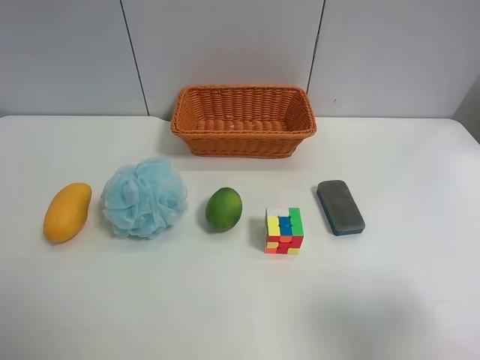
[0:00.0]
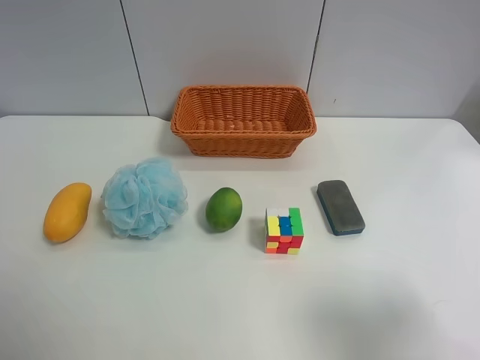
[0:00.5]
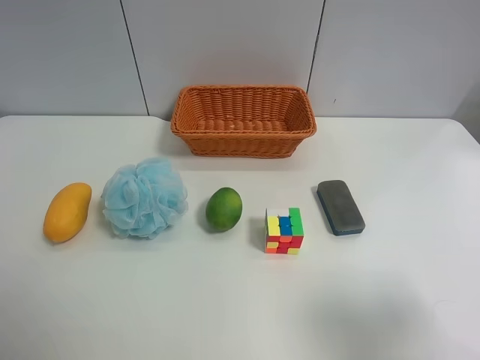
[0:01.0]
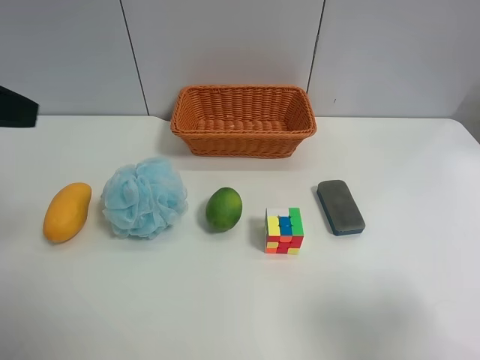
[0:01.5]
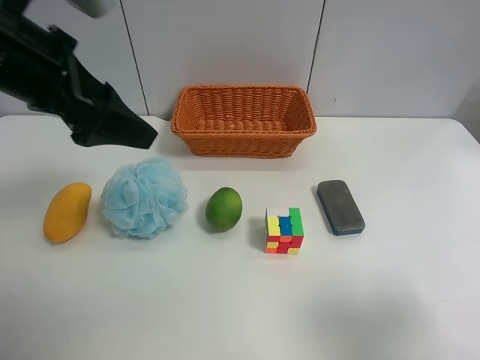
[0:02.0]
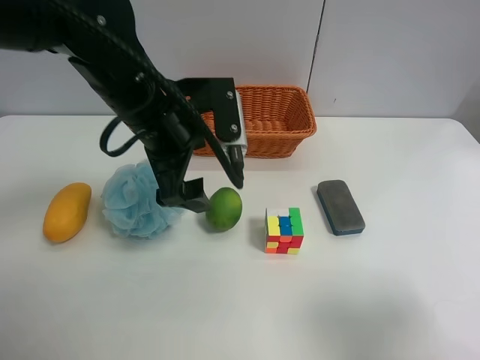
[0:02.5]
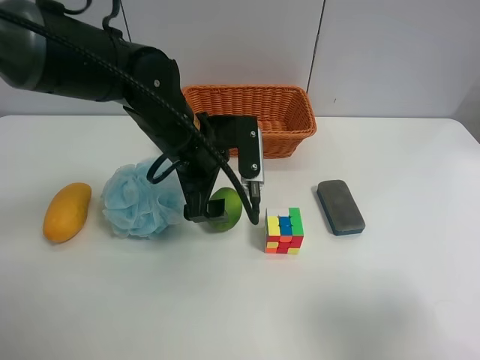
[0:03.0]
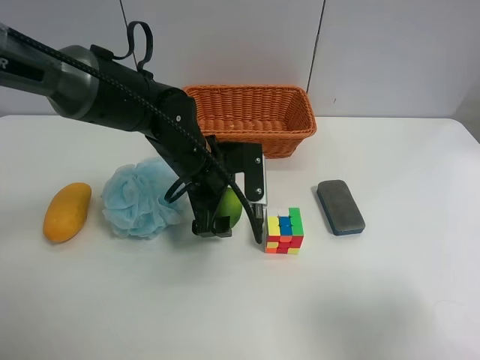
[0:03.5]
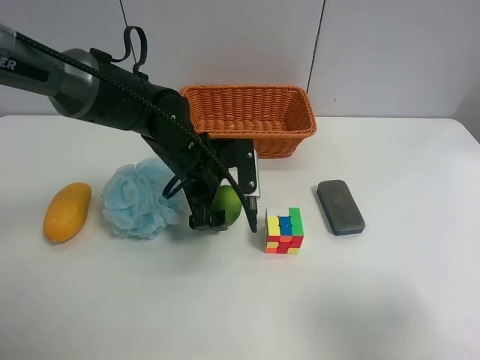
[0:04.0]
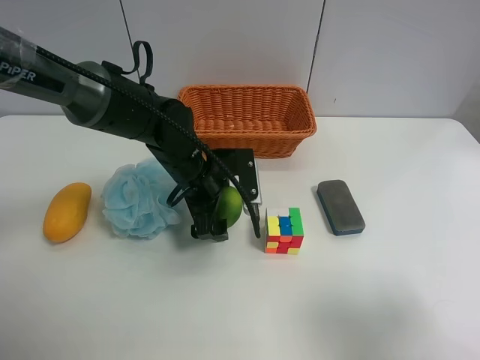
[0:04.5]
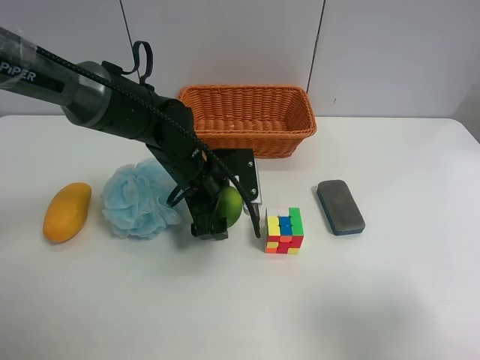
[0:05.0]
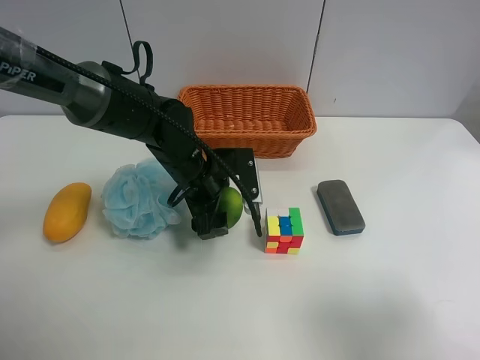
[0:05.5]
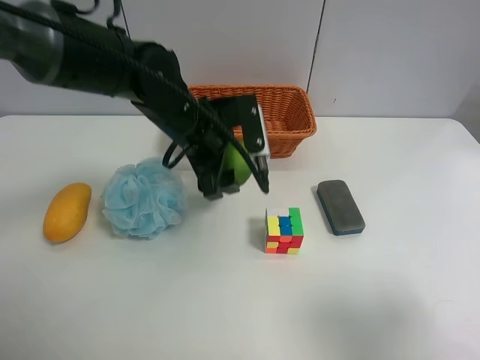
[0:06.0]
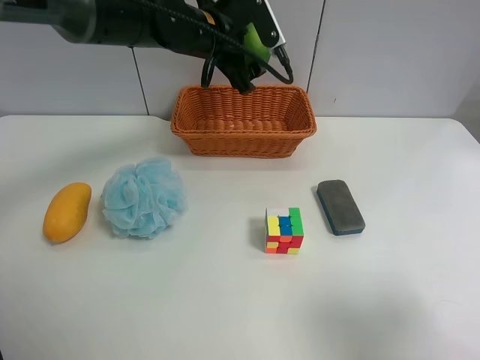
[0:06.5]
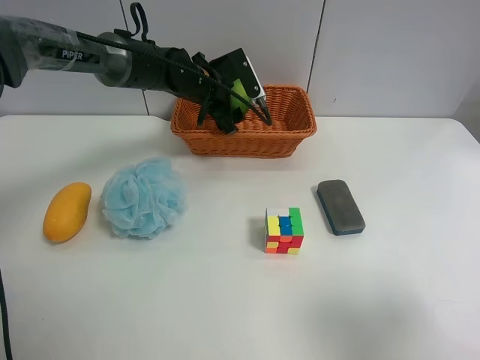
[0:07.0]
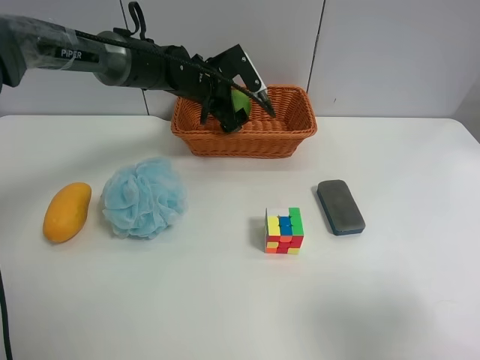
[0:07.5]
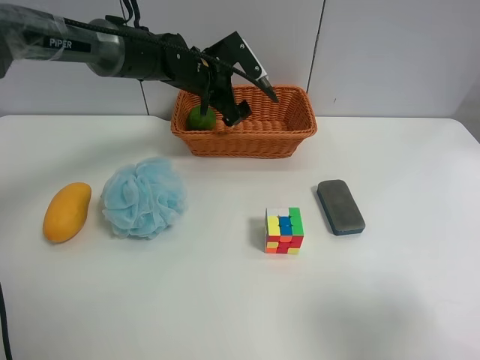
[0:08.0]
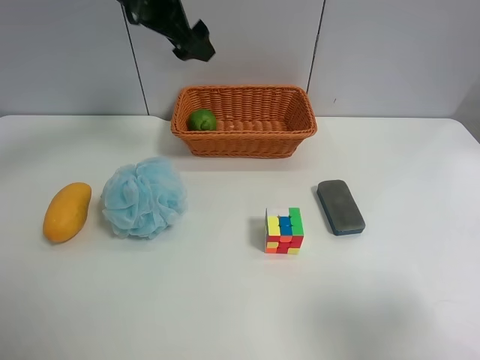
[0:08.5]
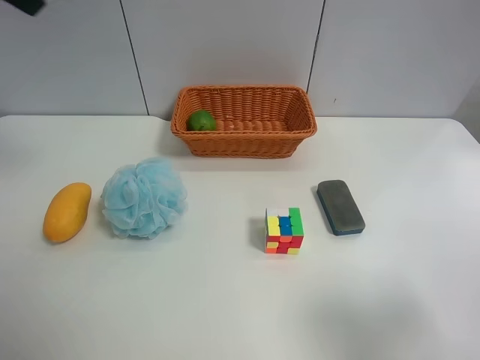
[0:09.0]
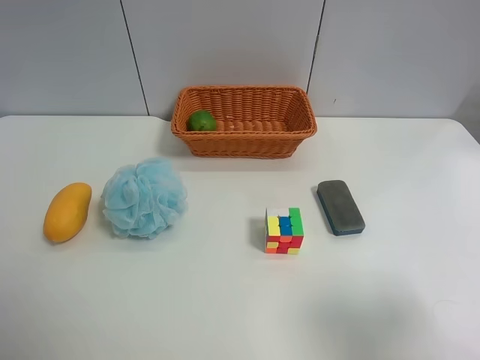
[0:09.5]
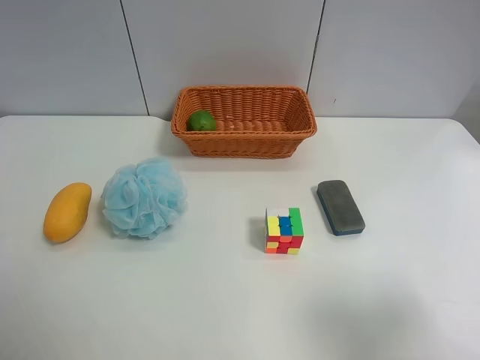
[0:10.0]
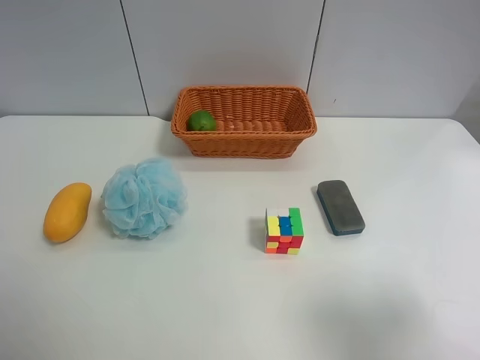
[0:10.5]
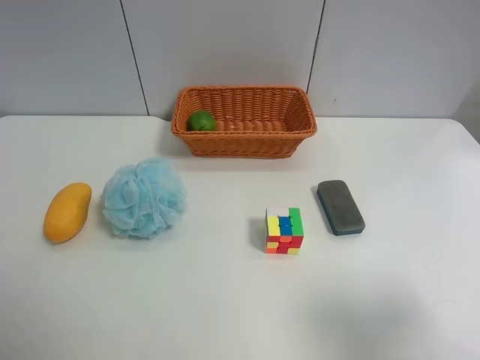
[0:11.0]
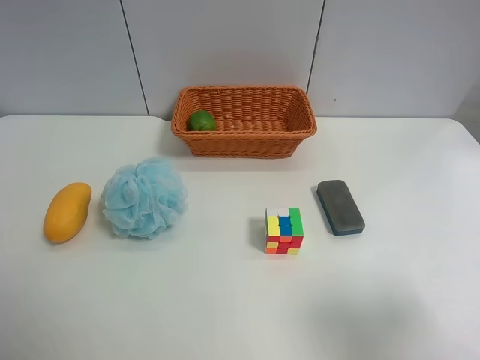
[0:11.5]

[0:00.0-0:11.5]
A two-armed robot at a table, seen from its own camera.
Task of the whole recording: Randomly grab green lemon or mangoes from the table and put them in a basket.
Step, 0:00.0 to 0:05.0: Grasp the Lemon with the left gripper.
Step, 0:05.5 to 0:08.0: Place the Lemon into the basket with the left gripper.
0:00.0 to 0:02.0: The left gripper travels forward and to the right by some 25 cm.
0:02.0 to 0:04.0: The left gripper is displaced downward, to the right and forward by roughly 25 cm.
0:04.0 to 0:06.0: The left gripper shifts some 5 cm upward, and closes.
0:06.0 to 0:07.5: The left gripper shifts roughly 15 cm forward, and opens up.
0:07.5 to 0:09.5: The left gripper goes roughly 60 cm backward, upward and to the left, and opens up.
